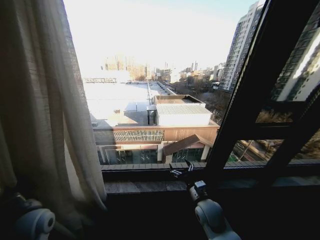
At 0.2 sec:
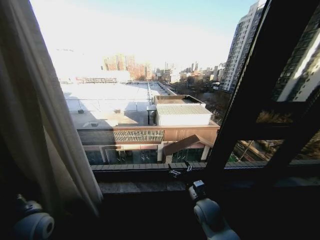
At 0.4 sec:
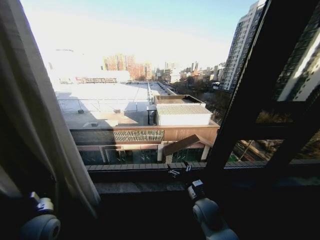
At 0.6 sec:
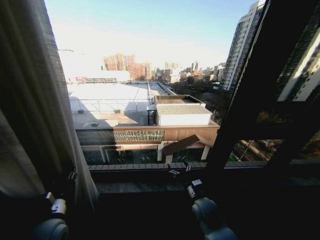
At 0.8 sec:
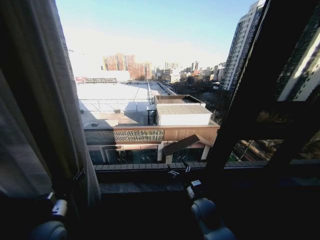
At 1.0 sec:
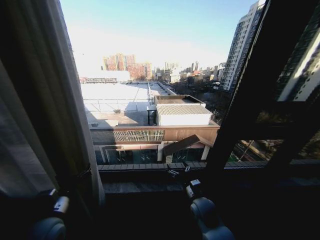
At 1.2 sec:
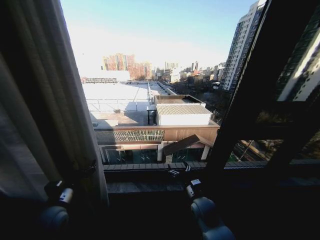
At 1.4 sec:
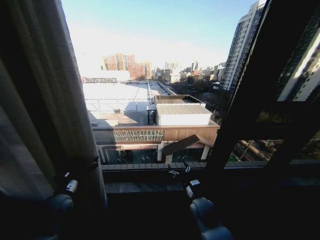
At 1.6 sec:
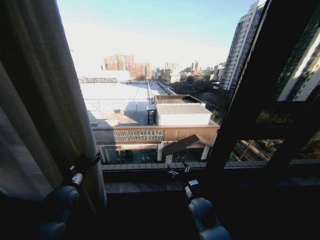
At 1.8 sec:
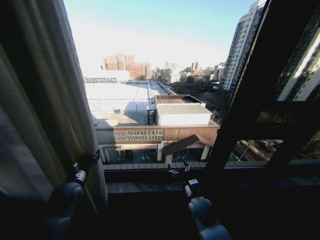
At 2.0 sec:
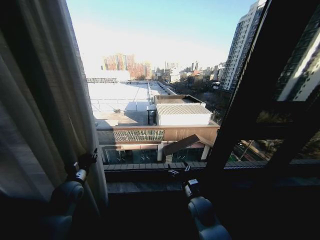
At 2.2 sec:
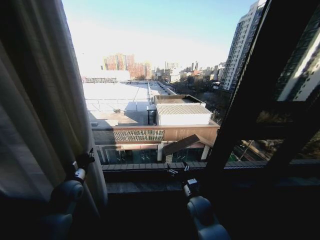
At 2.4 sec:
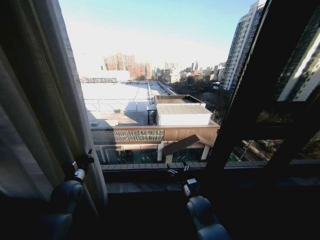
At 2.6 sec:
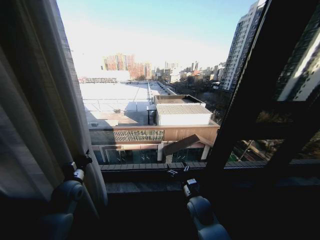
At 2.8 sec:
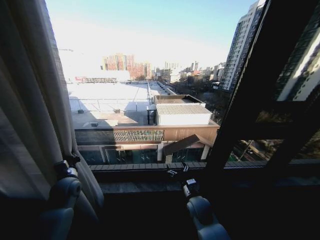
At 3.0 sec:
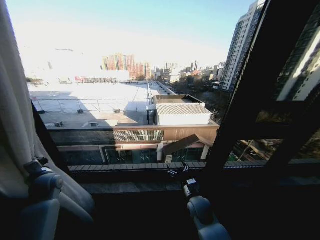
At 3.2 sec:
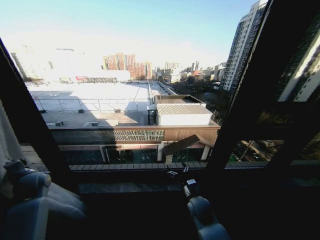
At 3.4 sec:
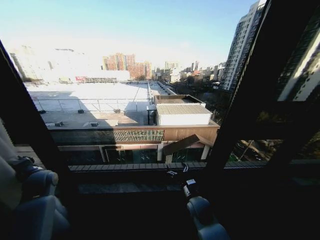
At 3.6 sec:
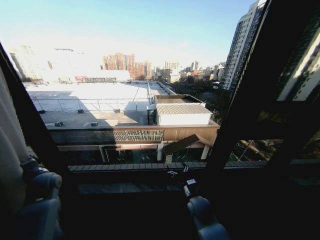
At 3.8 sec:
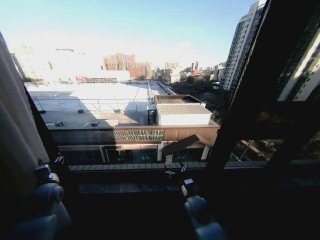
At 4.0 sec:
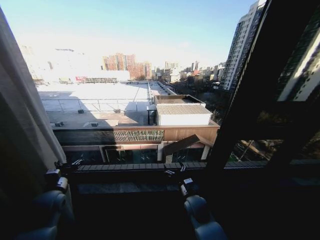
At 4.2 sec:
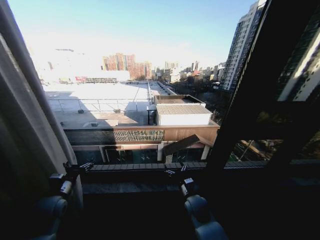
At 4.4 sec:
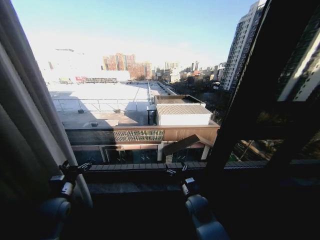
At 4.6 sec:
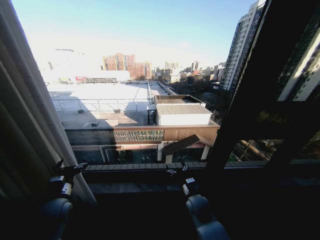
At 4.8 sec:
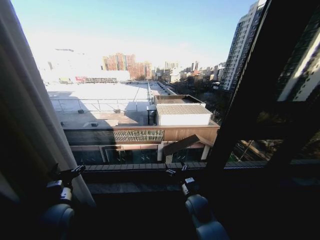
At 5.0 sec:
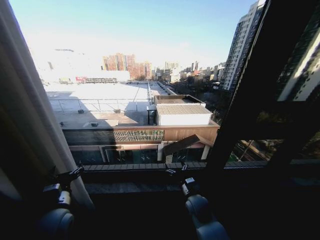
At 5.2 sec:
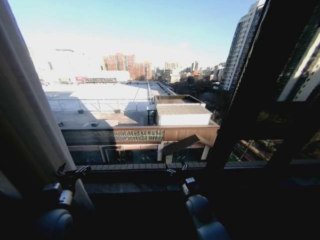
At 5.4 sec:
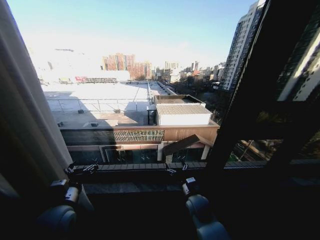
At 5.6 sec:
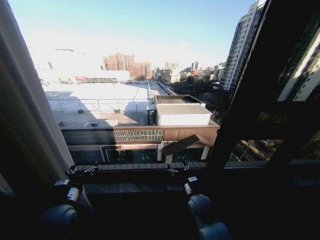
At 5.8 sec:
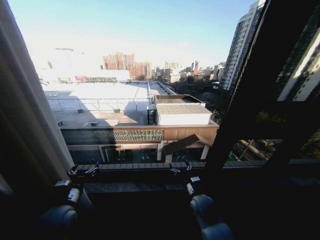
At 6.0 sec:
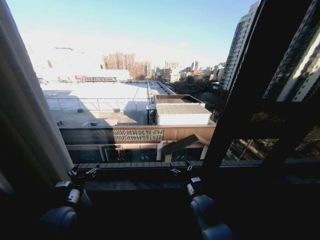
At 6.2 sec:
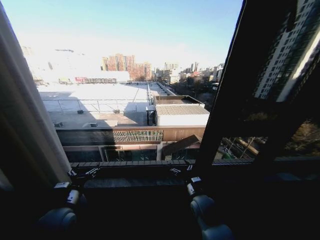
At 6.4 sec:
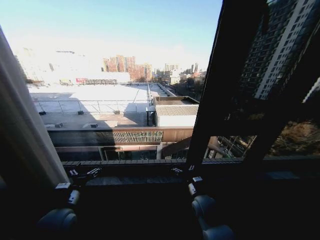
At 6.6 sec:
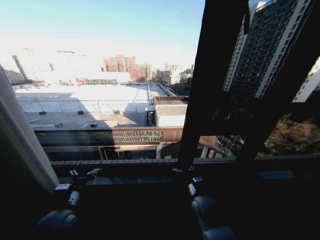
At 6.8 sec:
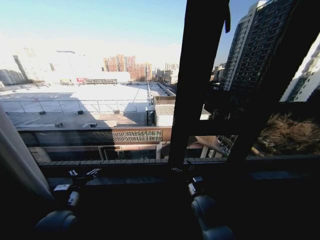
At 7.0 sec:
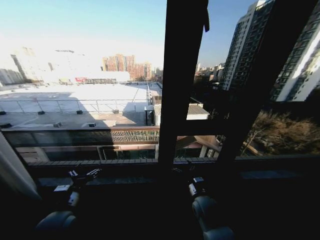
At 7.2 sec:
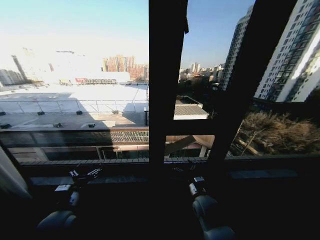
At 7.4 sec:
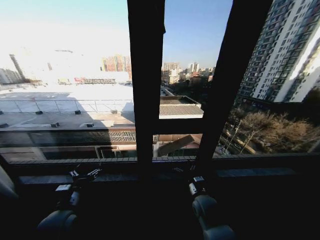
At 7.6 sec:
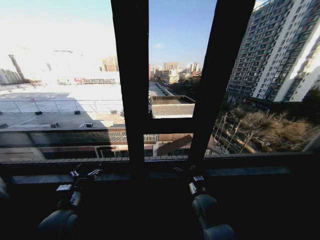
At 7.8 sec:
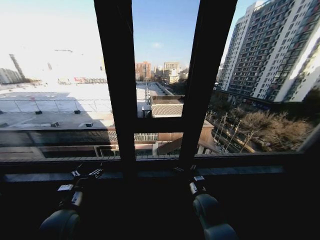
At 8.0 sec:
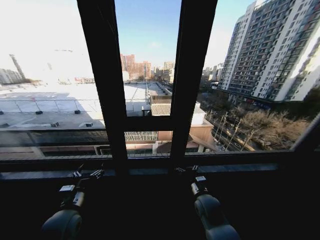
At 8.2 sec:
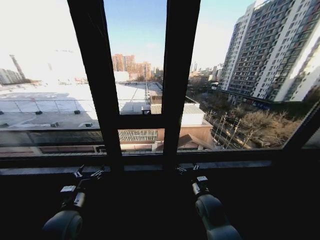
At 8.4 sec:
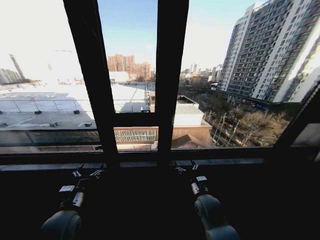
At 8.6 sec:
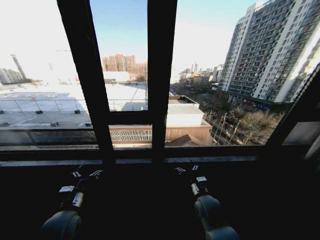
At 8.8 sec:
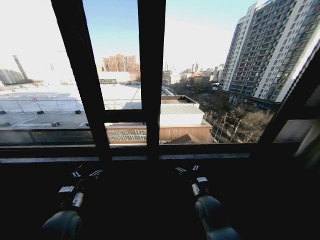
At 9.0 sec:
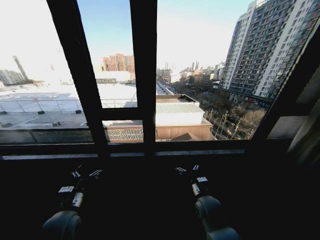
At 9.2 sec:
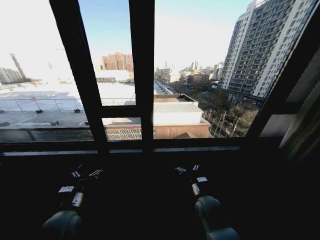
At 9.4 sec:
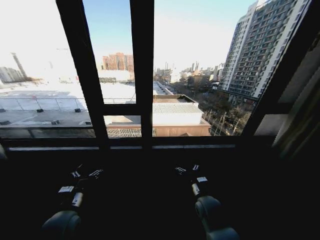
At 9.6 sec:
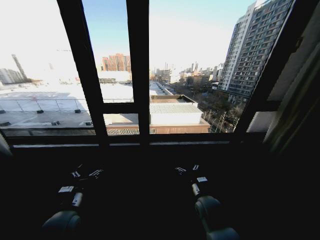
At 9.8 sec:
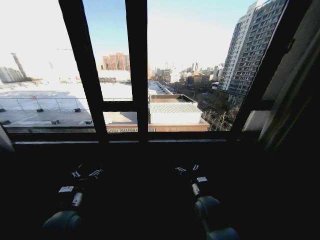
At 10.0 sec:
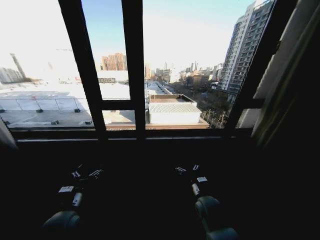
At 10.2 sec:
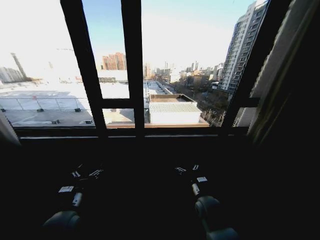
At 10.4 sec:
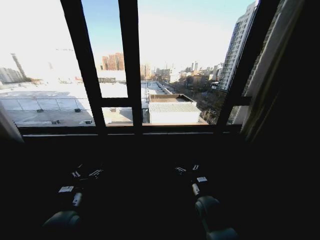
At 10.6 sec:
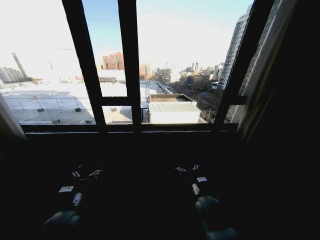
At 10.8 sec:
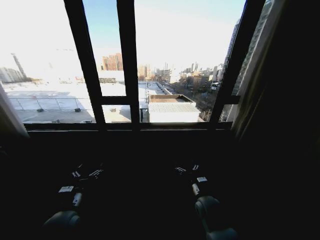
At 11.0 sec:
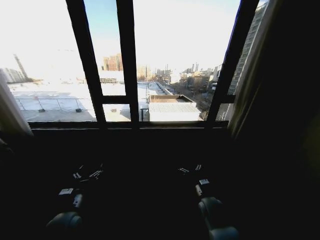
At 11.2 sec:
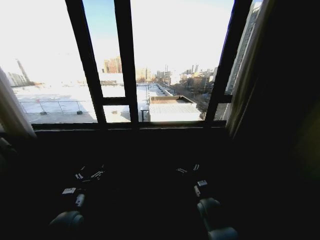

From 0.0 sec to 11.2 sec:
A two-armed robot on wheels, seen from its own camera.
Task of the whole recording: Open the curtains by pulling them apart, changing their state from closed to fully open.
From 0.0 sec to 1.6 sec: The left gripper moves forward, approximately 10 cm, and opens its fingers.
From 1.6 sec to 3.2 sec: The left gripper travels to the left by roughly 15 cm, and closes.
From 3.2 sec to 4.8 sec: The left gripper moves to the right and backward, some 20 cm, and opens up.

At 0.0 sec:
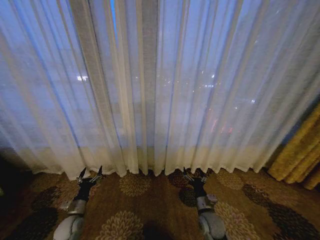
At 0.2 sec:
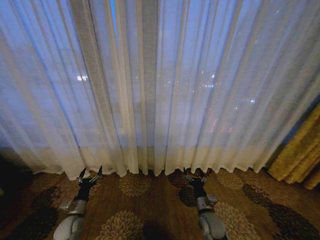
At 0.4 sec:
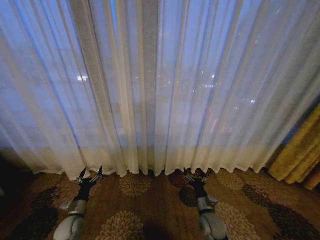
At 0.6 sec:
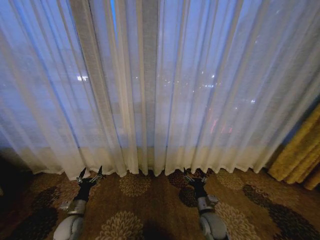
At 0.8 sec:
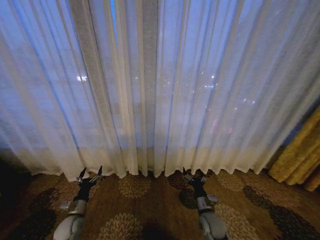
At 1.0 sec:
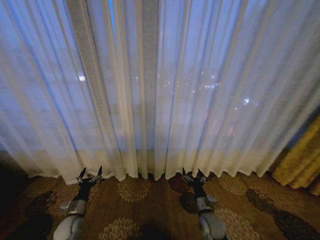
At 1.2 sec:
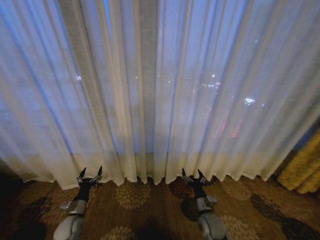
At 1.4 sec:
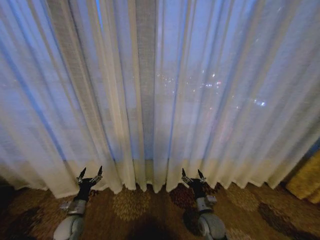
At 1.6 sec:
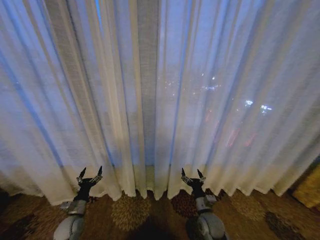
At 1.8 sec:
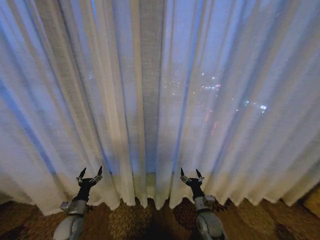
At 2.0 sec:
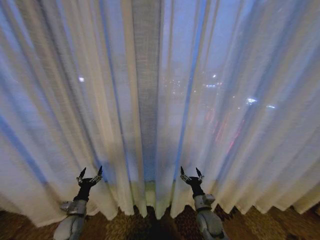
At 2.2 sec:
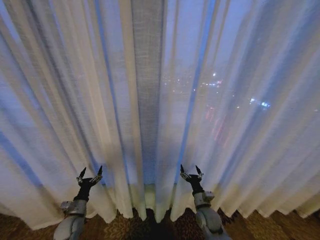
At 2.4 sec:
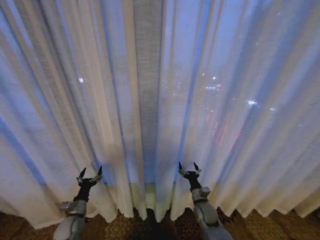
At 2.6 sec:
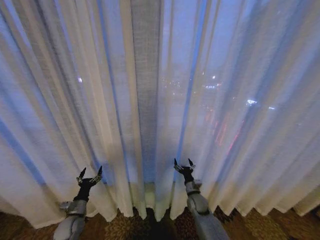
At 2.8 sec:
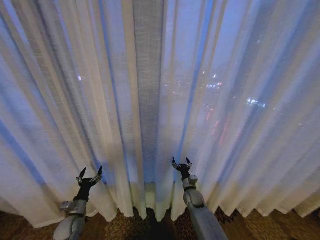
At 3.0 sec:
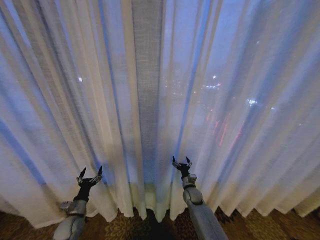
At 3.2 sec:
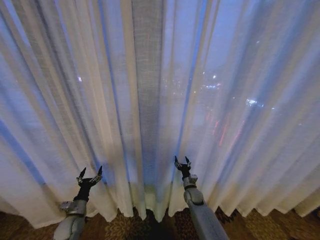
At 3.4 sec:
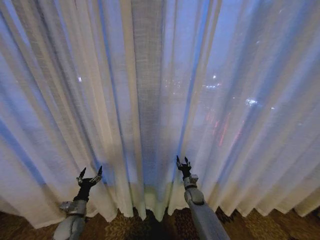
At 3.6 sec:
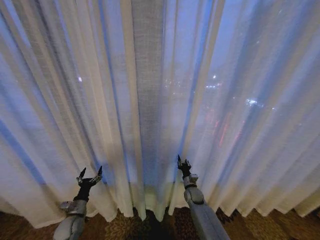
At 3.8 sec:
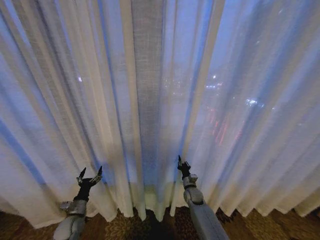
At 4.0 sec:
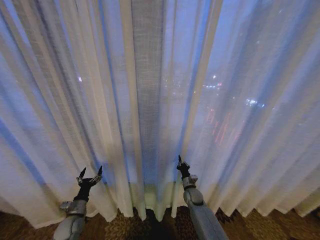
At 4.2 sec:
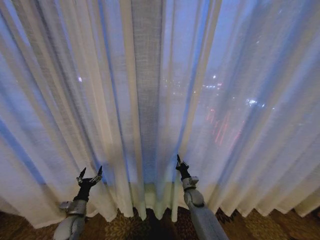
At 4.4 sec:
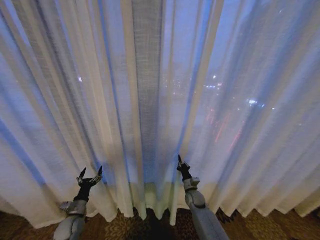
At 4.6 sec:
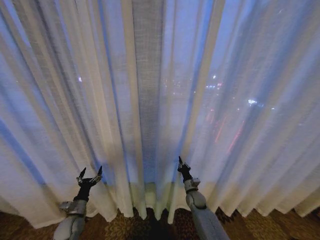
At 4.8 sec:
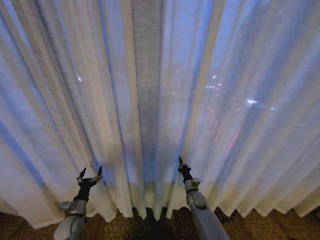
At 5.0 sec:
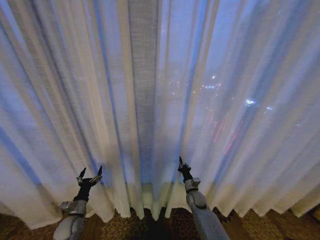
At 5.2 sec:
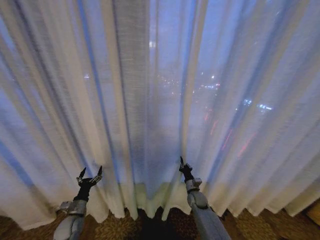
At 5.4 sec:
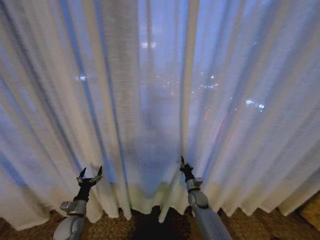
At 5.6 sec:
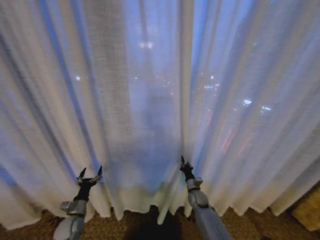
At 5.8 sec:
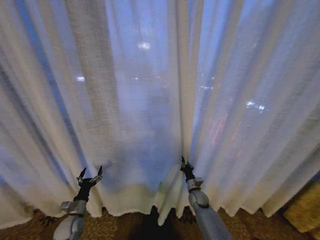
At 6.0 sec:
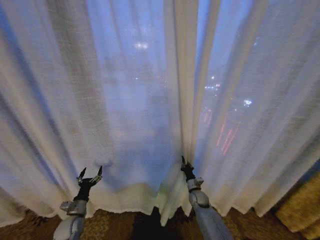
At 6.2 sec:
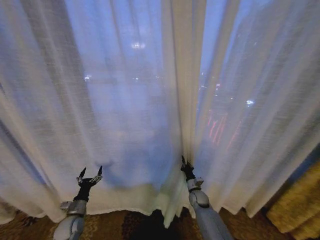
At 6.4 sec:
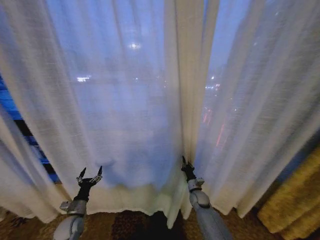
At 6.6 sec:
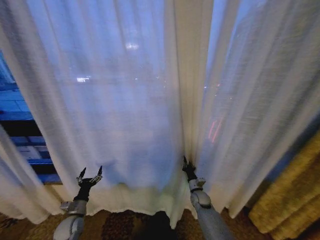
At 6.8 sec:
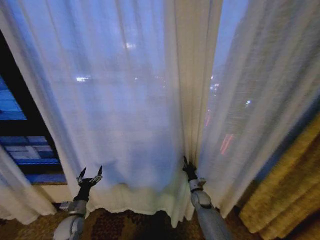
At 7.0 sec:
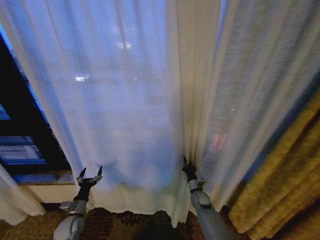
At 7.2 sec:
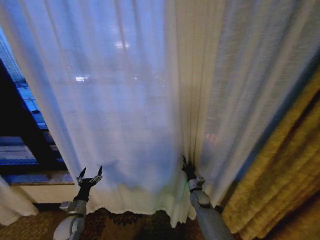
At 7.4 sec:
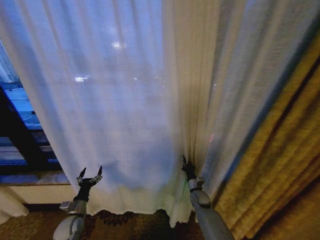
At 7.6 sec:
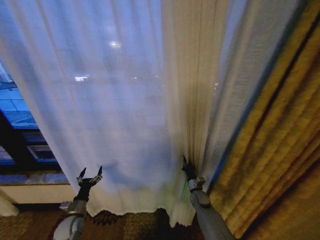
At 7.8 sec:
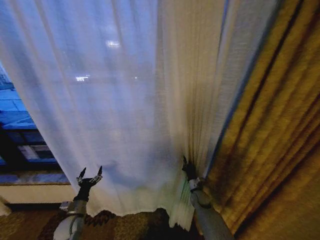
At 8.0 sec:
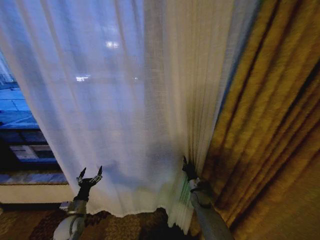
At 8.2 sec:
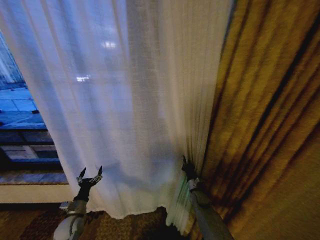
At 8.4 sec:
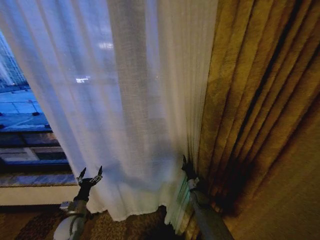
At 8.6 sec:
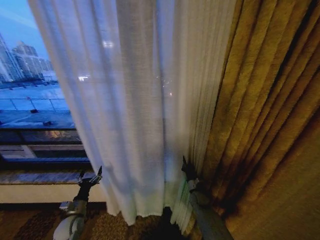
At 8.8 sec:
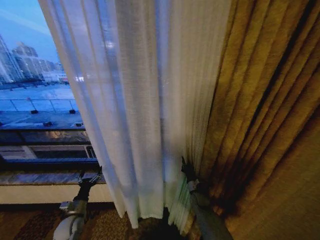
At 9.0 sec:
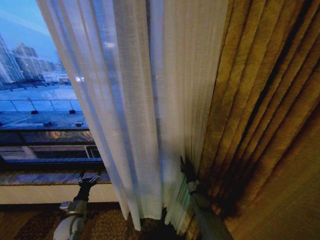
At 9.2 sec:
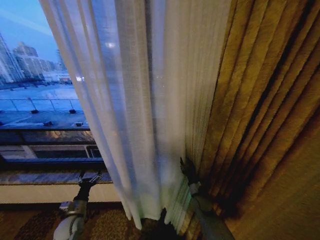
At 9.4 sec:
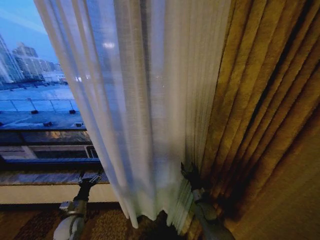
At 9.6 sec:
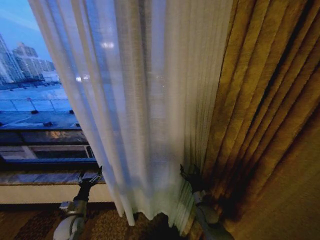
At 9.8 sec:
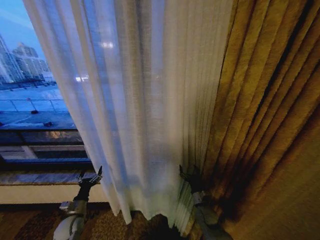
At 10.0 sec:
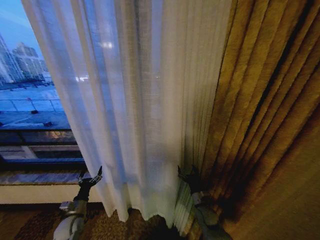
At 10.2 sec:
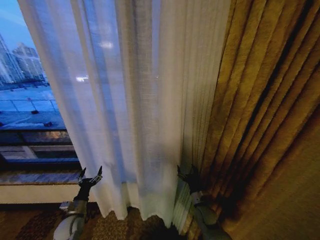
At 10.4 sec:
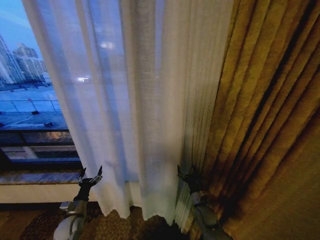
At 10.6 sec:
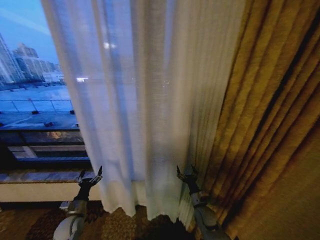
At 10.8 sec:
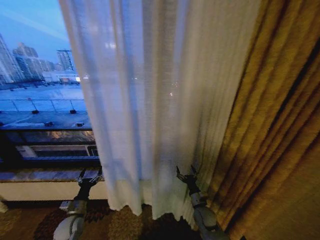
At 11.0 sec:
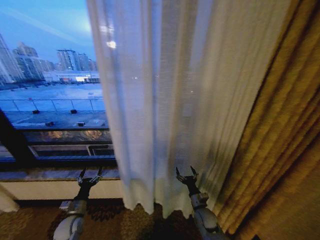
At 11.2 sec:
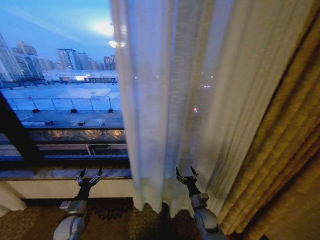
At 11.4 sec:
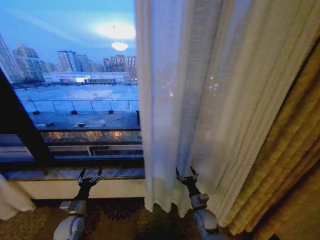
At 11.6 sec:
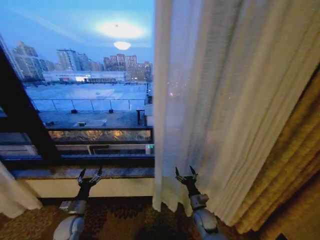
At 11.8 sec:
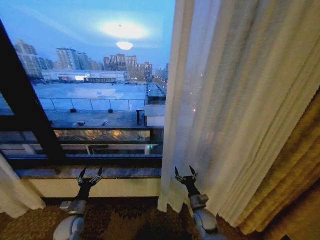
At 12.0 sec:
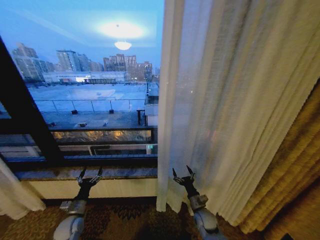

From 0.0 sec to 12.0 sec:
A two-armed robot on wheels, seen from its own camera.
Task of the whole recording: Open the curtains by pulling them apart, changing their state from closed to fully open.
From 1.6 sec to 3.0 sec: The right gripper travels forward by about 15 cm.
From 3.0 sec to 4.4 sec: The right gripper closes up.
From 9.0 sec to 10.4 sec: The right gripper travels backward by some 5 cm, and opens up.
